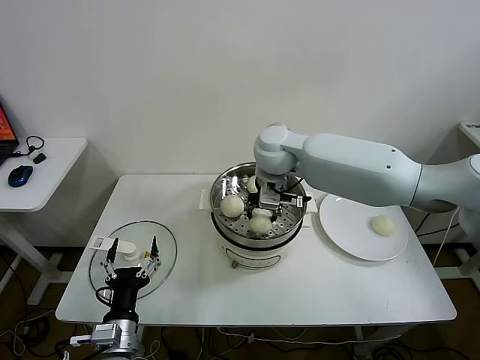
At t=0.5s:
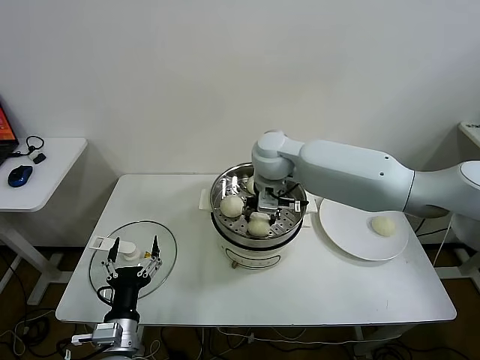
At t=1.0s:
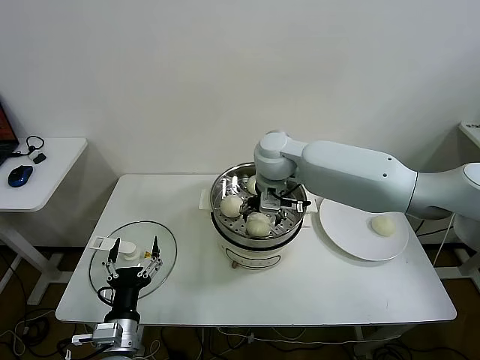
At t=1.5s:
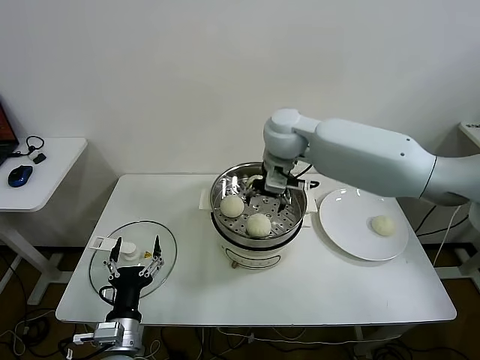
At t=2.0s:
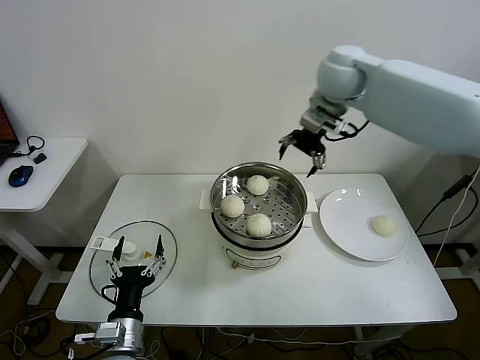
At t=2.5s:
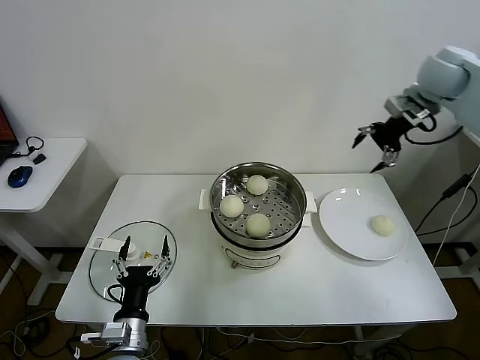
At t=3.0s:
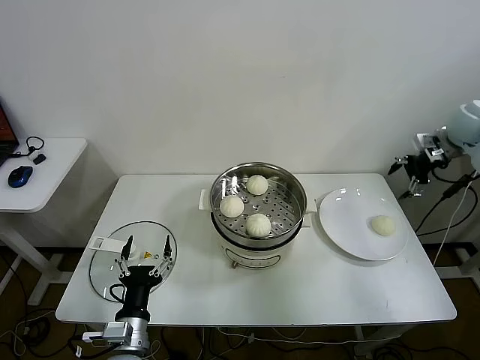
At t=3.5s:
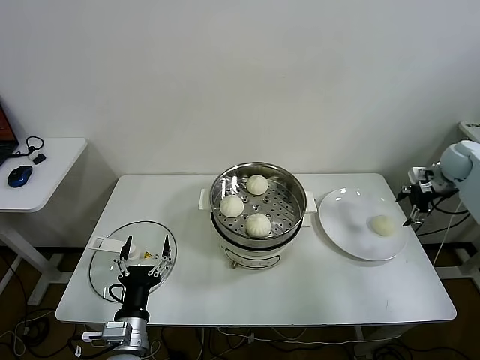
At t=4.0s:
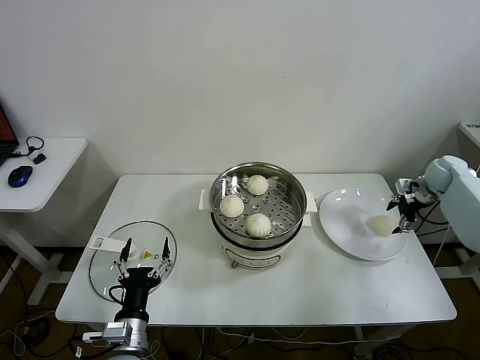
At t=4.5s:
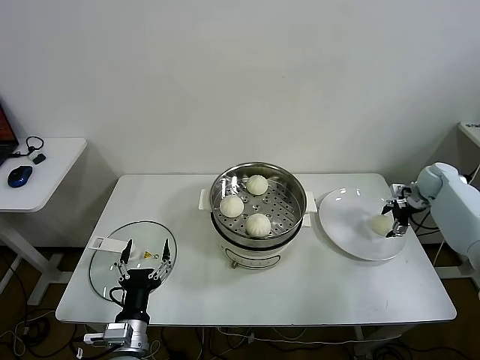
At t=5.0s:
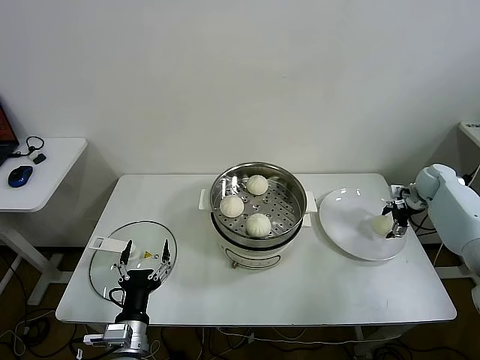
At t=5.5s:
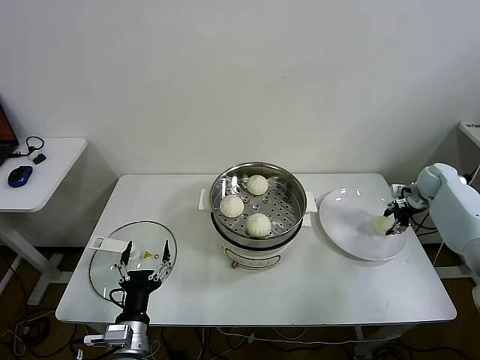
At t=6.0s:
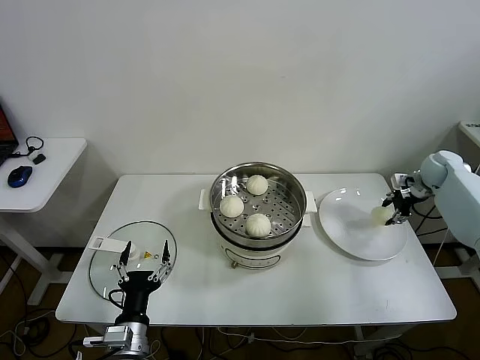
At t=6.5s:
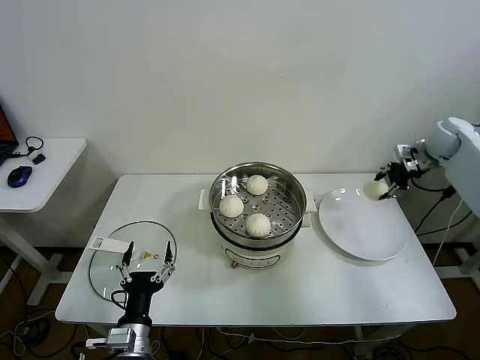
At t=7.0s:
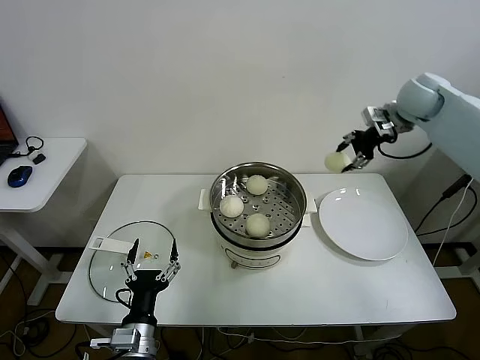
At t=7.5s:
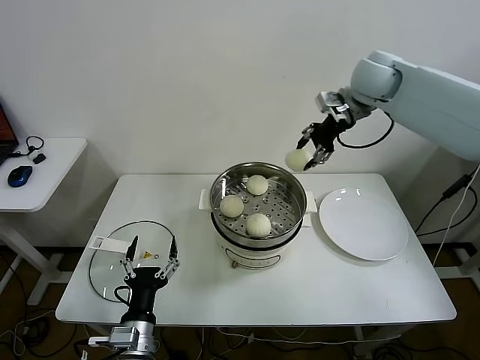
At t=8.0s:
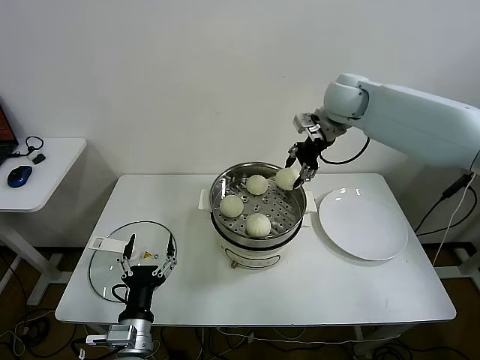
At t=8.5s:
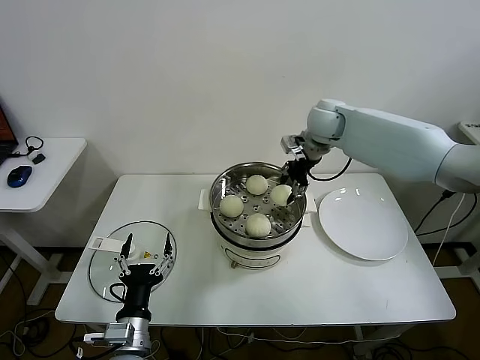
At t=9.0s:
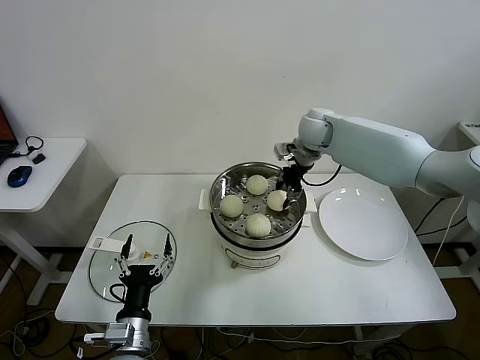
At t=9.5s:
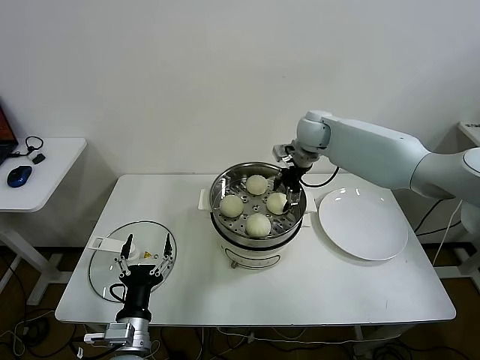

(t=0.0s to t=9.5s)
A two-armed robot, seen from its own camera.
Task of the whole recording: take steamed baozi put them in steamer.
Step, t=1.5s - t=5.0s: Grasp the baozi in the plate with right gripper.
t=0.0s - t=2.0s: The right gripper moves upward, to the right and forward, roughly 20 cm, and opens.
t=2.0s - t=4.0s: The right gripper moves to the right and downward, approximately 40 cm.
t=4.0s - t=5.5s: The right gripper closes up.
t=5.5s - t=7.5s: The right gripper moves upward and to the left, some 40 cm.
t=7.5s - t=9.5s: The right gripper is displaced downward and to the left by approximately 15 cm, and opens up.

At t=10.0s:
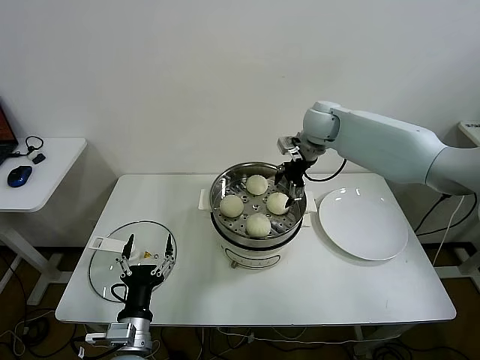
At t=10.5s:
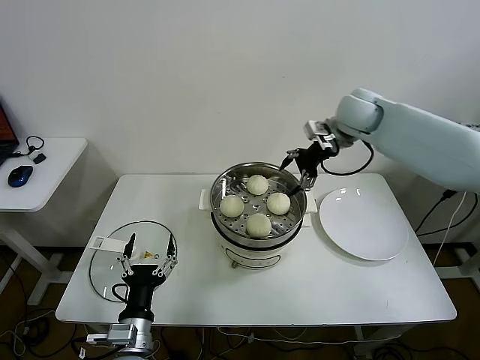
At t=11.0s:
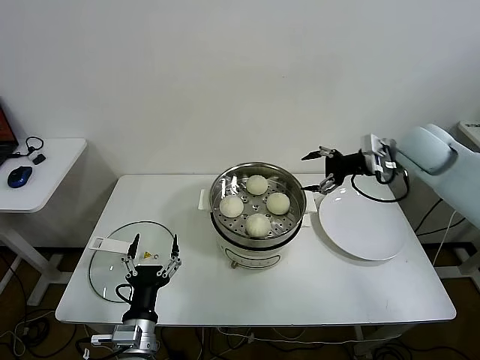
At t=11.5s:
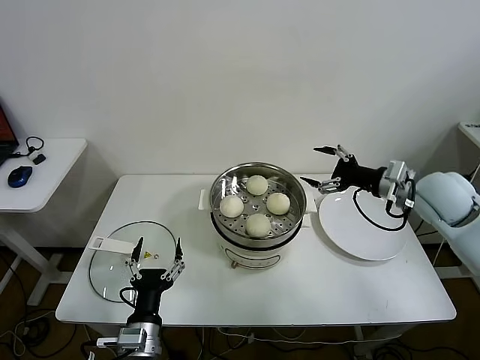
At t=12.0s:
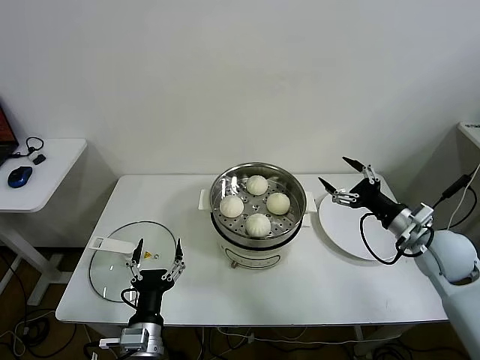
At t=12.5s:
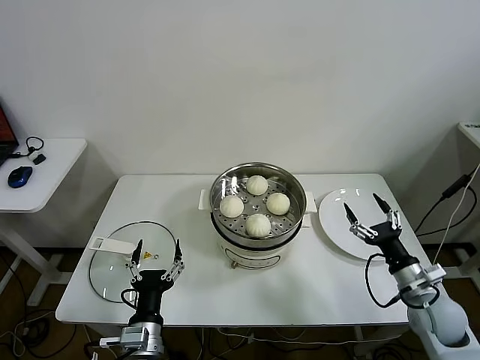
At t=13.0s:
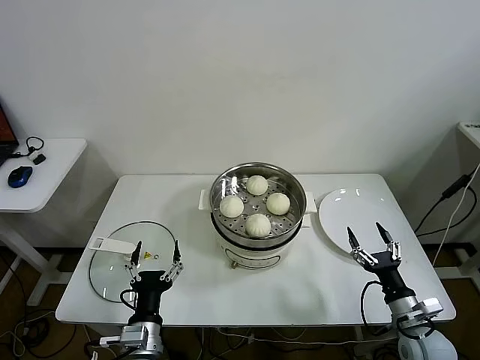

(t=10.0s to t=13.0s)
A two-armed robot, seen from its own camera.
Task of the whole recording: take steamed baozi put them in steamer.
t=10.0s - t=11.5s: The right gripper shifts about 25 cm backward and to the right.
t=11.5s - t=13.0s: The right gripper heads downward and backward, covering about 35 cm.

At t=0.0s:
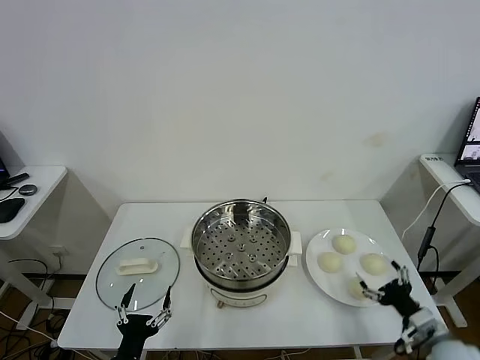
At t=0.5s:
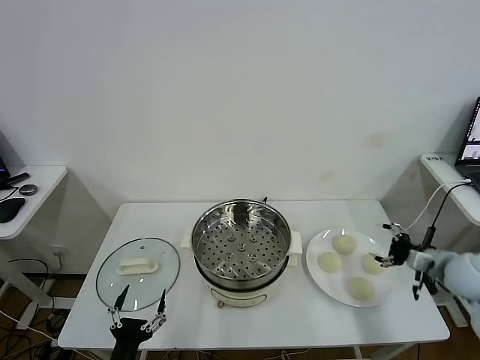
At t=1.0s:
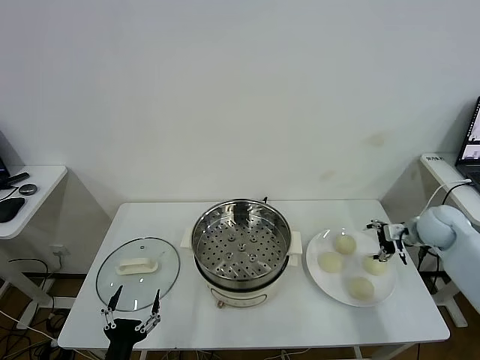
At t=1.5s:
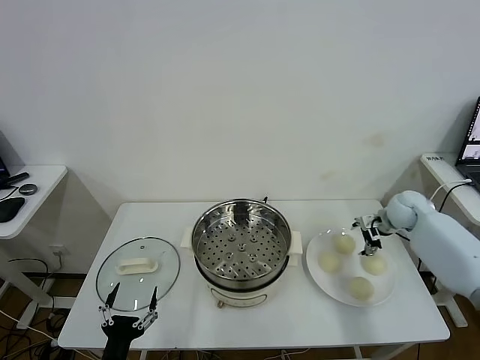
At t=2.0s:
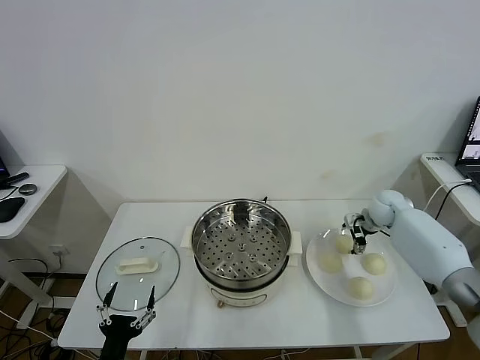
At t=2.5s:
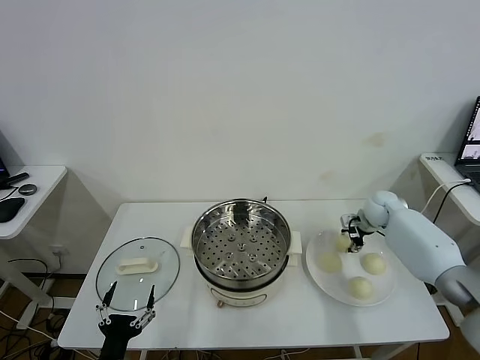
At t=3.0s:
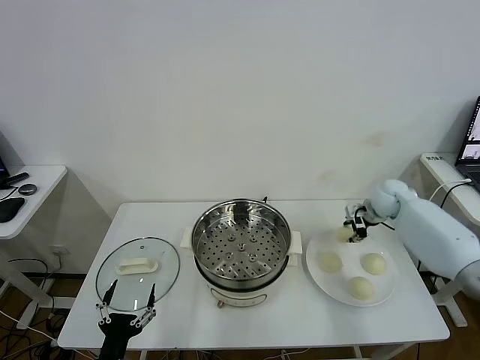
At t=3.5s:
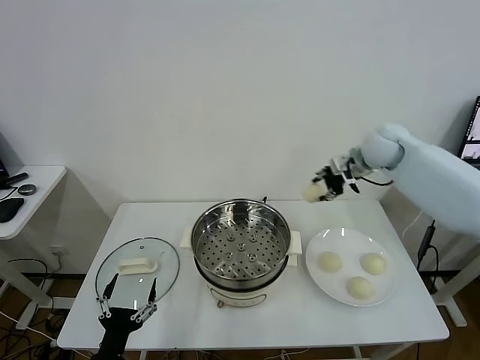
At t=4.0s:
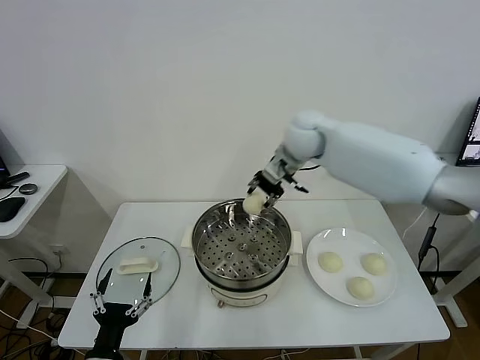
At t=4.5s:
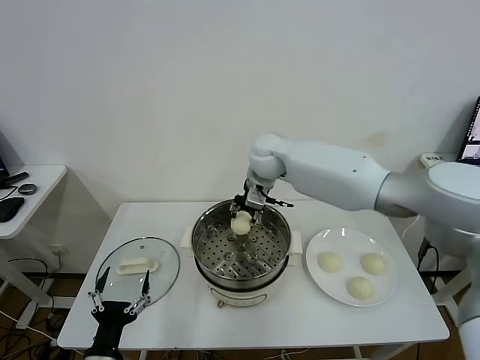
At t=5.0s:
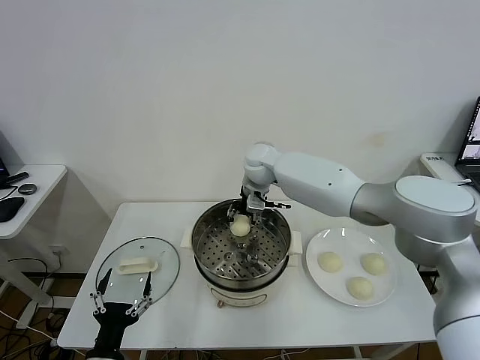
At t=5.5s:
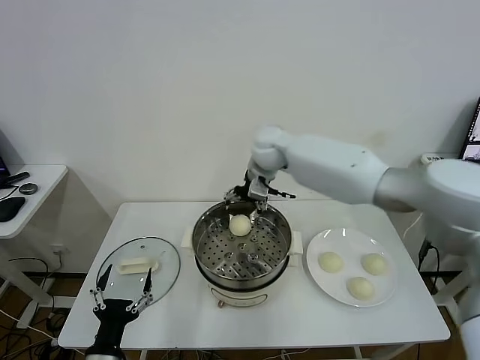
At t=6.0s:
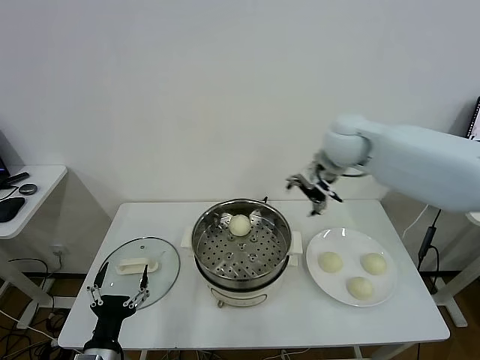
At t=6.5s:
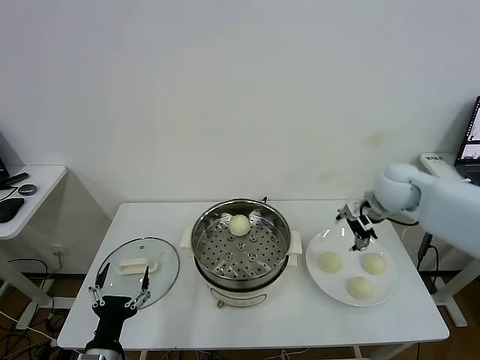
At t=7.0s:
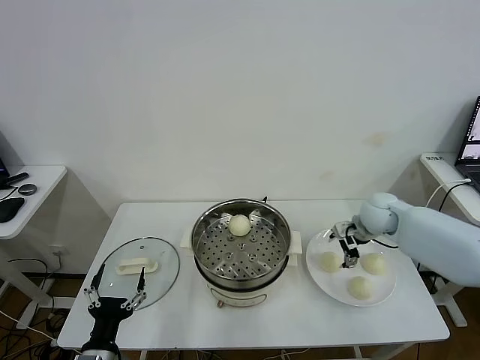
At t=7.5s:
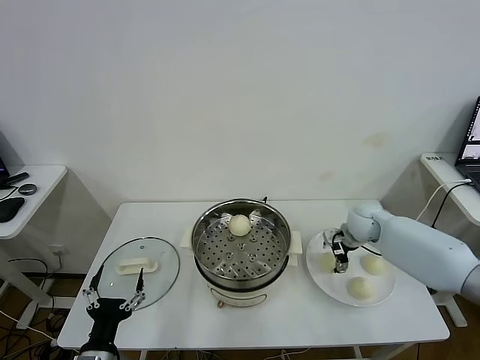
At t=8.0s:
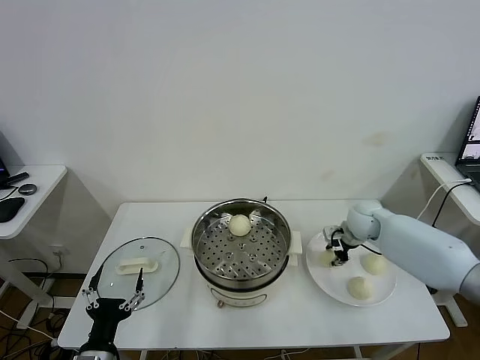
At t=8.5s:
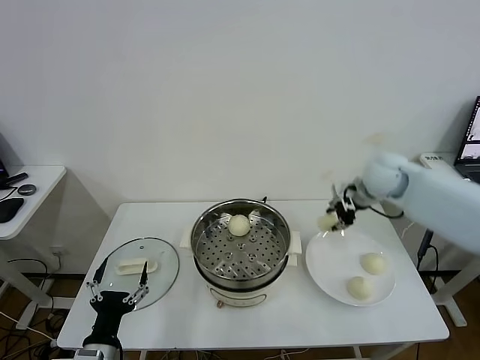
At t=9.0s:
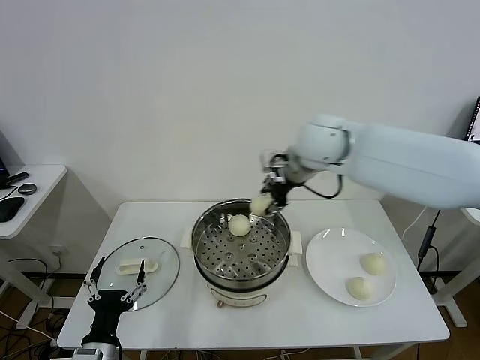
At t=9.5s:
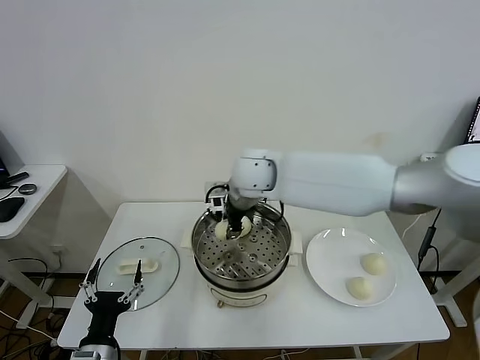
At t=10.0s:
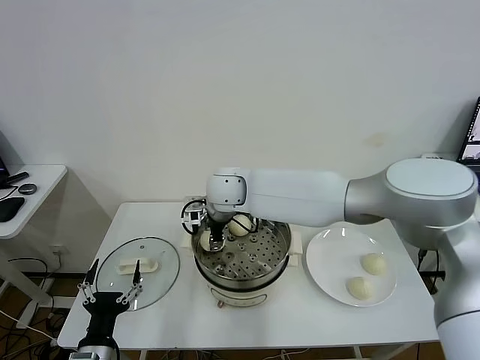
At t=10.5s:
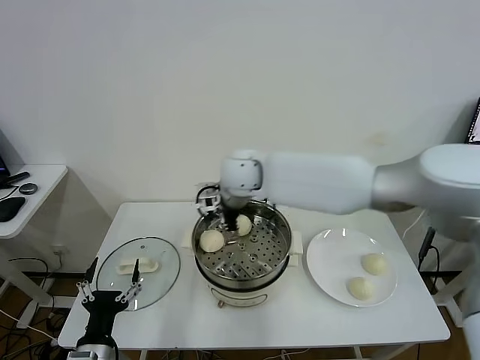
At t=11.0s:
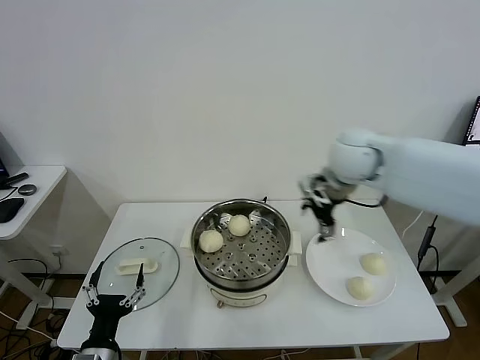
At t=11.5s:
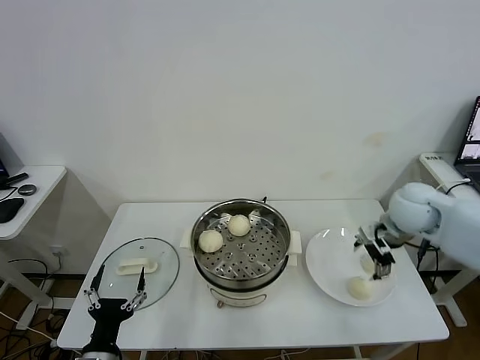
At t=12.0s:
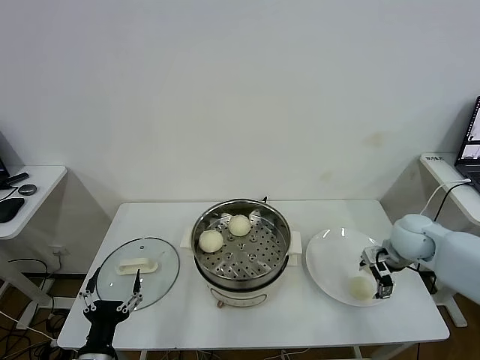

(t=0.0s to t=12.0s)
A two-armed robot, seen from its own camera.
Task of the whole recording: take steamed baozi put them in steamer.
Step, t=0.0s - t=2.5s: Grasp the baozi in the plate with right gripper.
Step, t=3.0s - t=5.0s: Place the baozi on the steamer with right gripper.
Step, t=5.5s - t=8.0s: Grasp the baozi in the plate with right gripper.
Step, t=8.5s - t=10.0s: Place the baozi on the steamer with right gripper.
t=2.0s - t=4.0s: The right gripper heads to the left and upward, covering approximately 35 cm, and closes.
t=4.0s - t=6.0s: The right gripper heads to the right, covering roughly 10 cm, and opens.
t=6.0s - t=8.0s: The right gripper goes roughly 25 cm downward and to the right, and closes.
t=8.0s - t=10.0s: The right gripper heads to the left, covering about 35 cm.
t=10.0s - t=12.0s: The right gripper shifts about 40 cm to the right, and opens its fingers.
